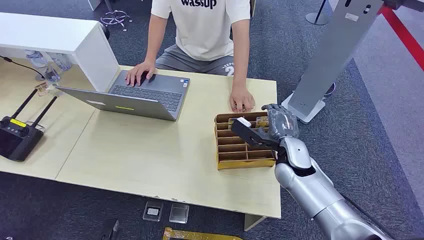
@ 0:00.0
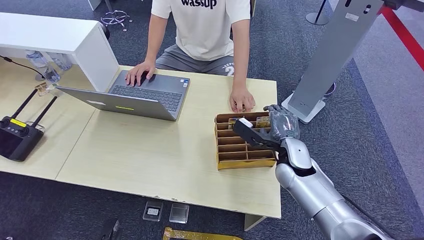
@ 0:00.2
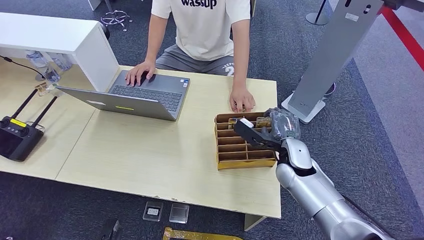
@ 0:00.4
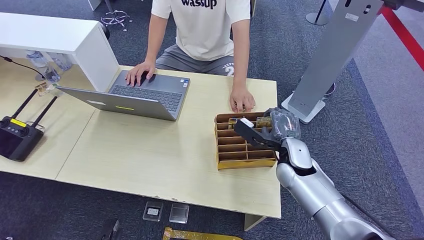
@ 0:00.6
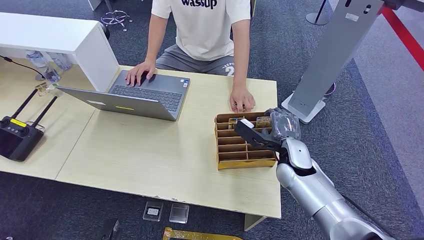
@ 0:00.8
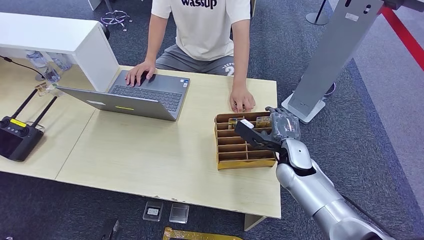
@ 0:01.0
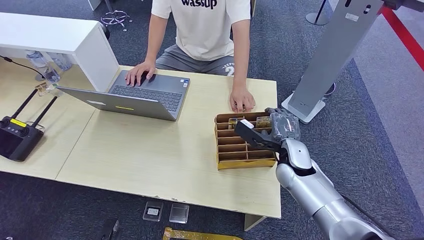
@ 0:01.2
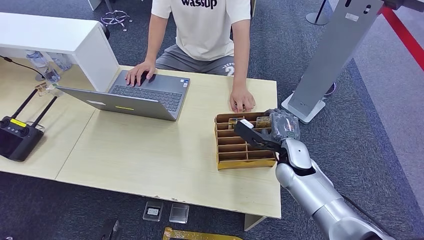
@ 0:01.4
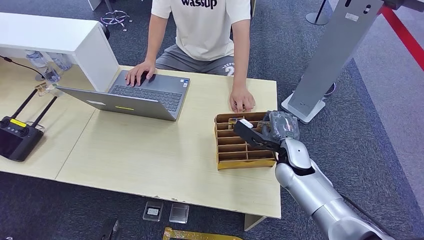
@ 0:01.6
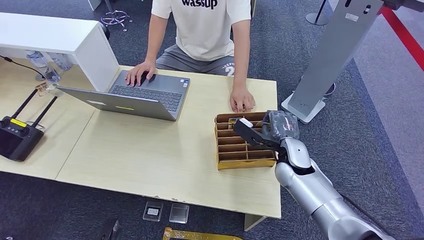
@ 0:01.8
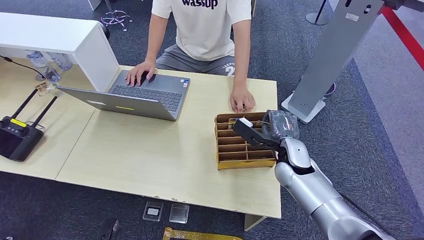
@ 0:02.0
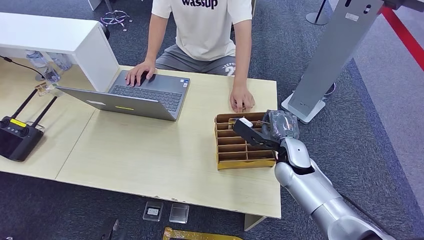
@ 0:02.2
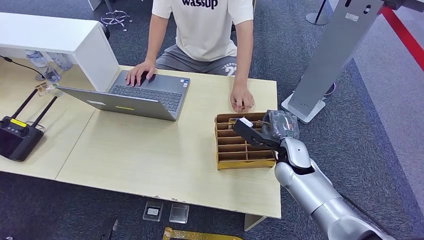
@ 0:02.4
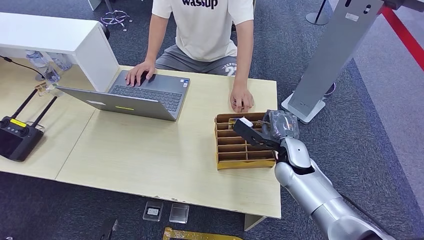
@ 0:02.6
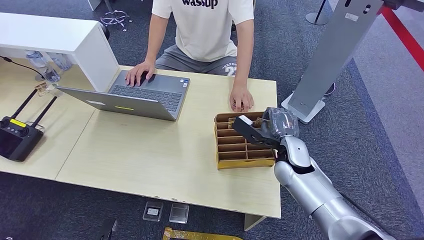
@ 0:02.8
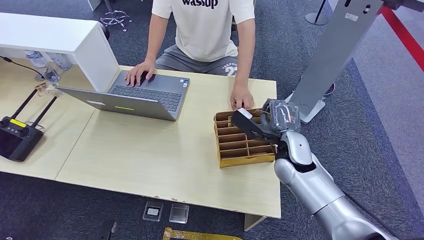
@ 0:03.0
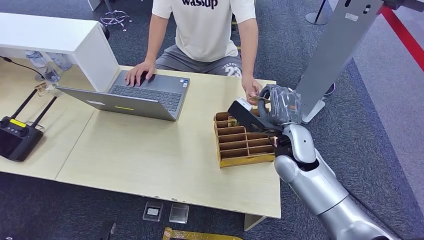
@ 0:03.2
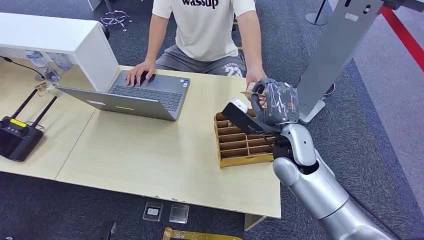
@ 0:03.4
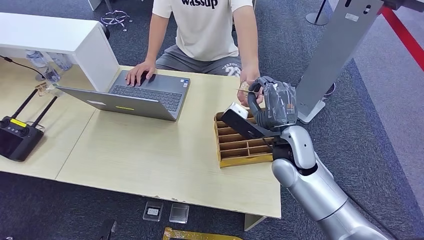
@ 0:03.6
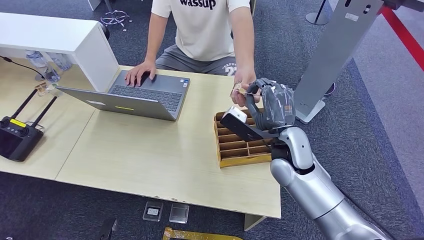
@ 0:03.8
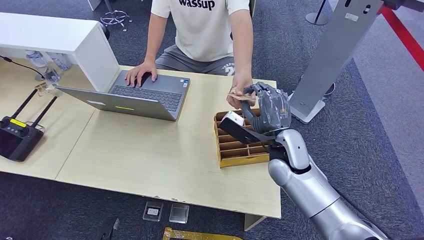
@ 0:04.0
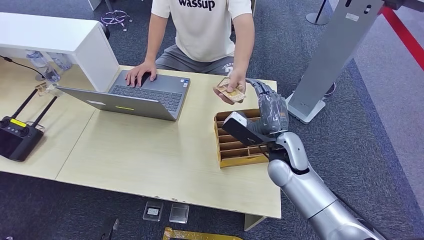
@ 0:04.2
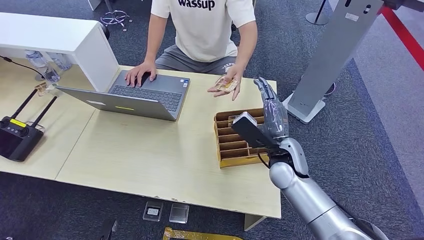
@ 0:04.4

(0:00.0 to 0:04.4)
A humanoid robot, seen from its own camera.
Step, 0:00.0 - 0:03.0: Pick up the key card from the card box.
Step, 0:03.6 - 0:04.4: Hand the key card to the target.
0:01.4 - 0:03.0: The hands stay close to where they were, moving slightly.
